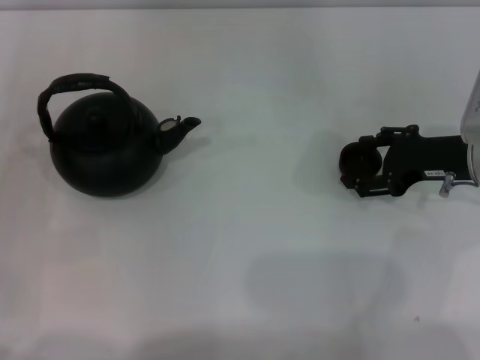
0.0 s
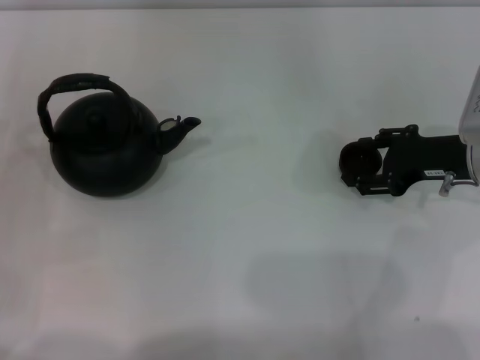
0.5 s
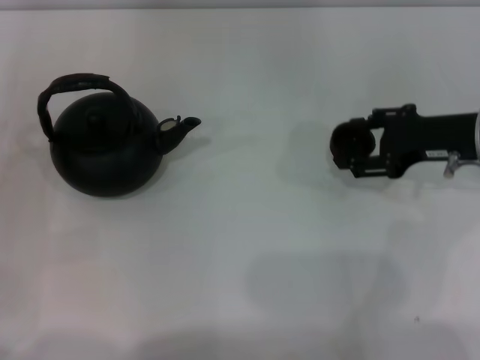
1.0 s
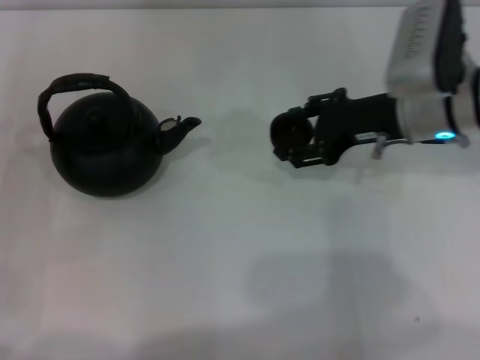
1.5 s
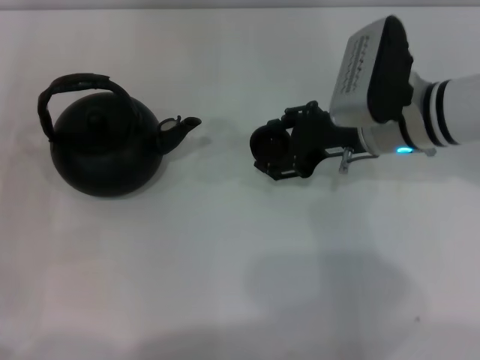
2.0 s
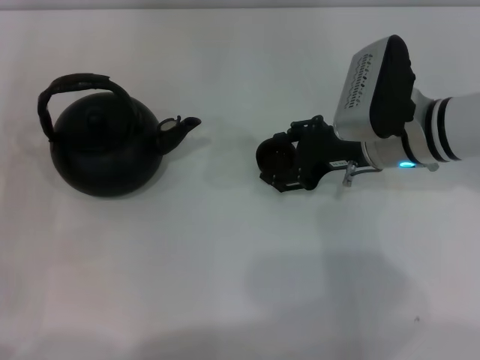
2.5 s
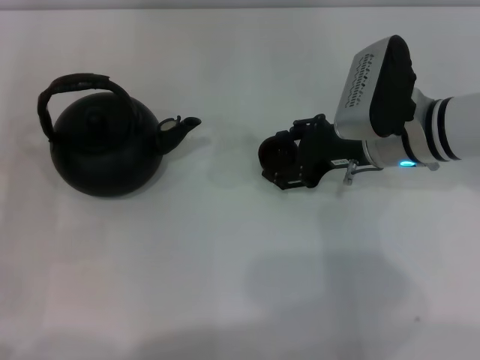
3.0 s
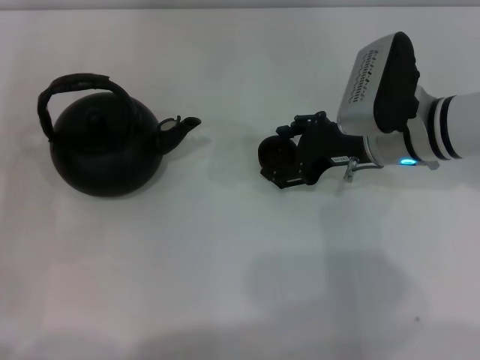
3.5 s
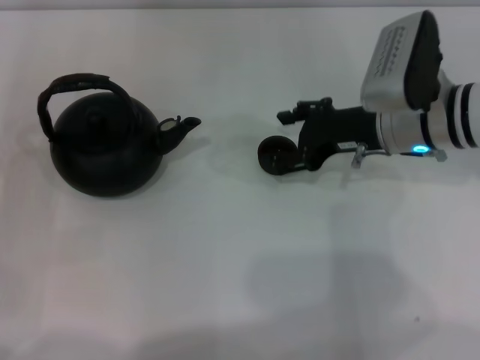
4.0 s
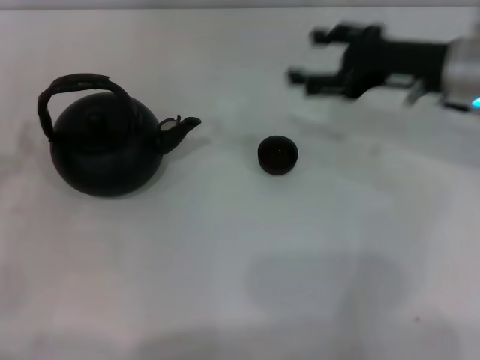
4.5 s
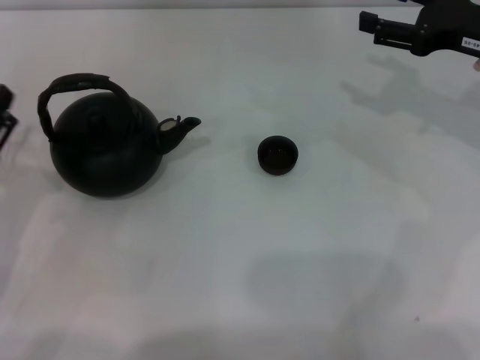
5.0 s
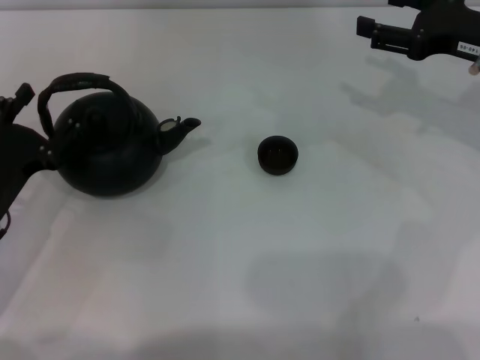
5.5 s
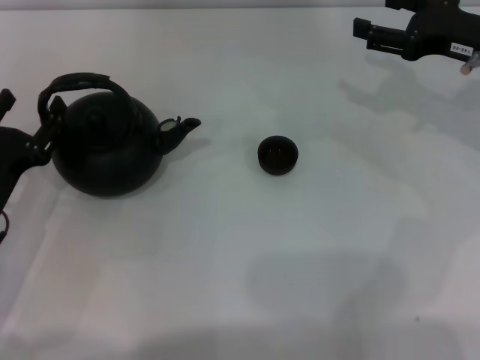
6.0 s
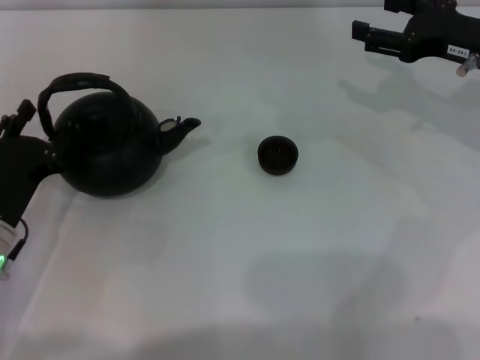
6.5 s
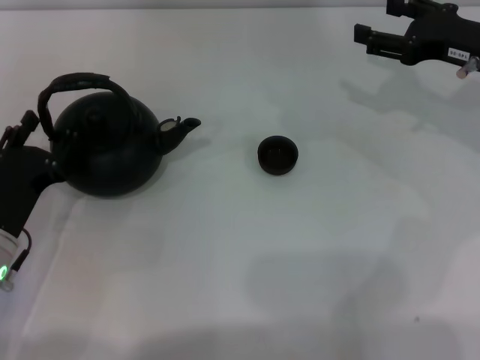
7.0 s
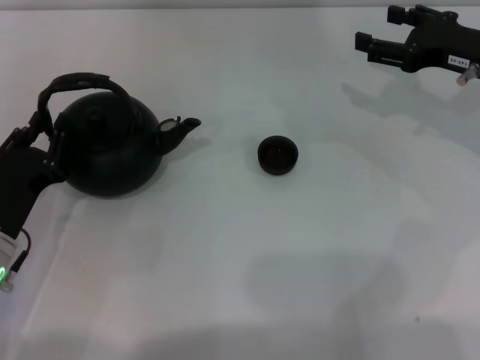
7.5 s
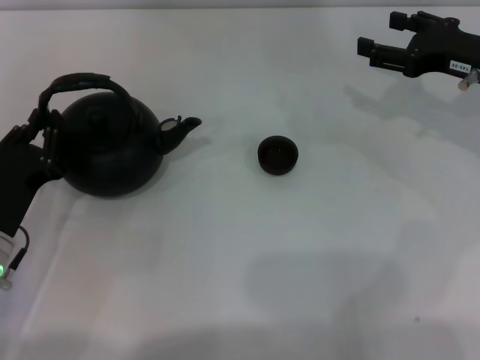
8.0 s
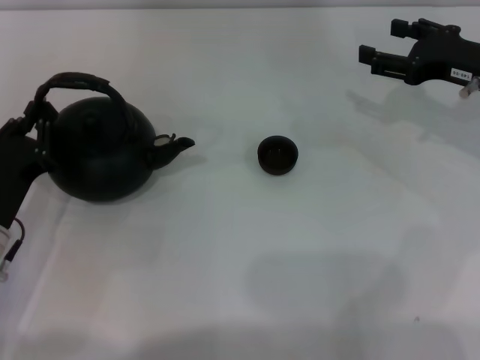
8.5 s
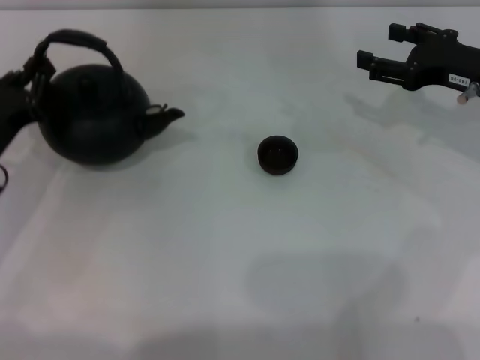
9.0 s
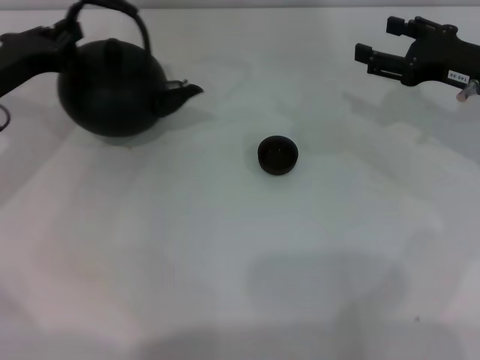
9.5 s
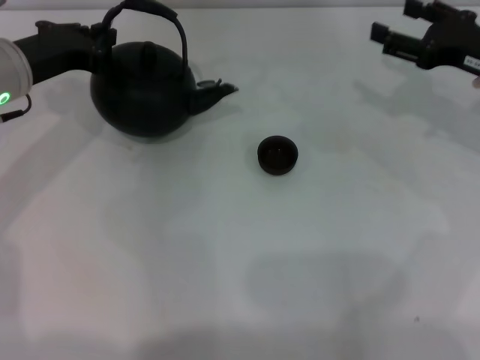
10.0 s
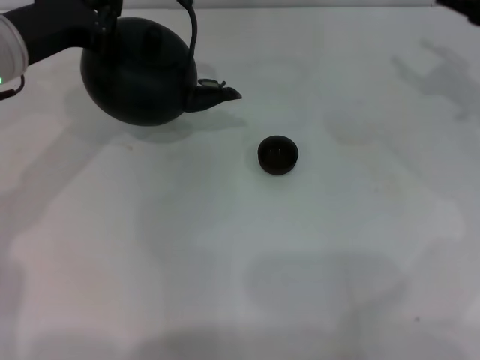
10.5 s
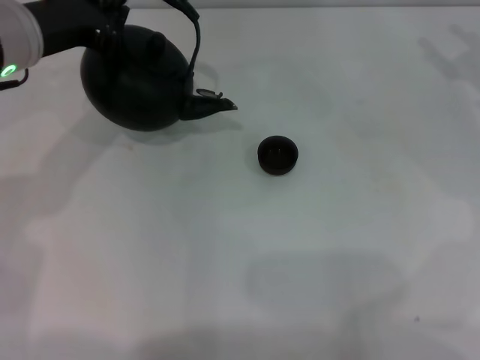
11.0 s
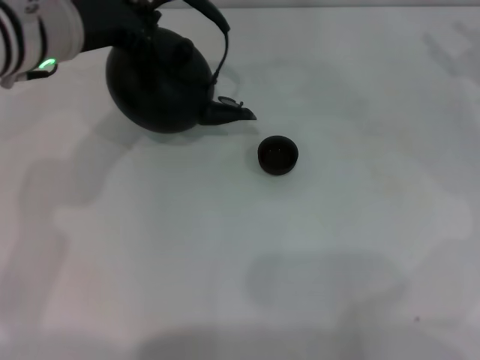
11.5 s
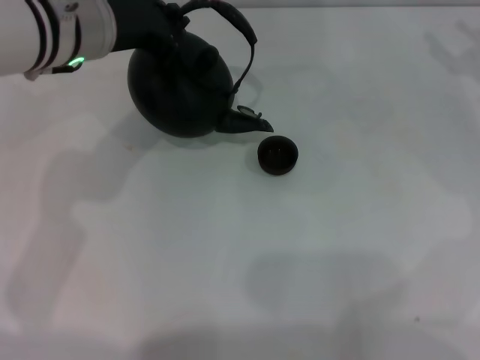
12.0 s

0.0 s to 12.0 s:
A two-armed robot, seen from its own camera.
Task of the whole recording: Grasp the handle of the teapot with one hand and pour tea into the teacup.
Step, 1.5 to 4.0 s: Place the teacup in the center of view with the right gripper.
Step, 4.5 to 9.0 s: Pick up the teapot with the left gripper.
0.0 to 2.0 s: The right gripper goes some 10 cm to the left.
2.0 to 4.0 s: The grippers stay close to where they were, moving slightly.
4.0 to 6.0 s: Both grippers move to the right, about 10 cm.
6.0 to 8.0 s: The left gripper closes up.
8.0 to 10.0 s: The left gripper travels forward and upward by some 20 cm.
10.0 to 12.0 s: The left gripper is displaced to the right and upward by roughly 10 cm; the right gripper goes about 5 cm to the right.

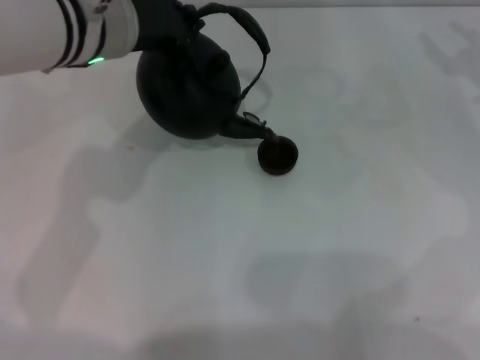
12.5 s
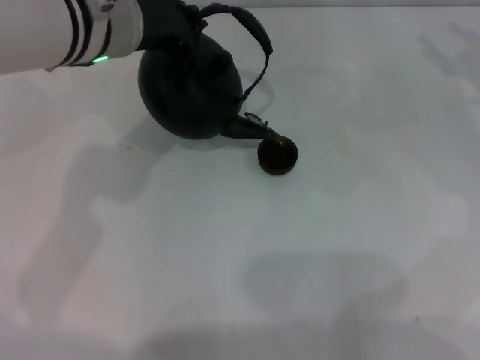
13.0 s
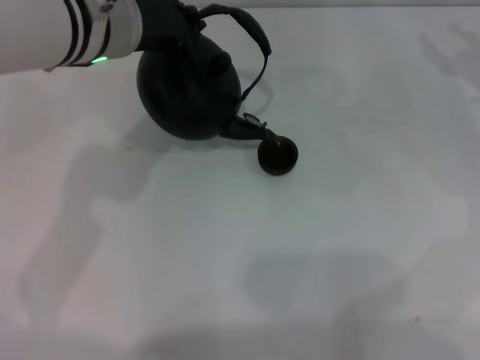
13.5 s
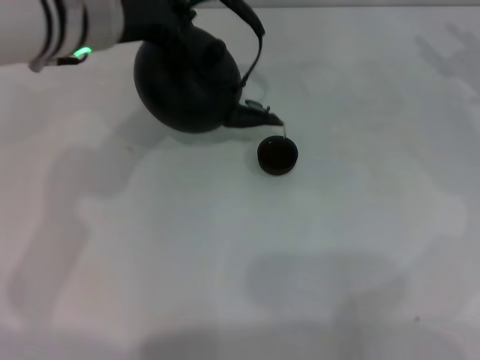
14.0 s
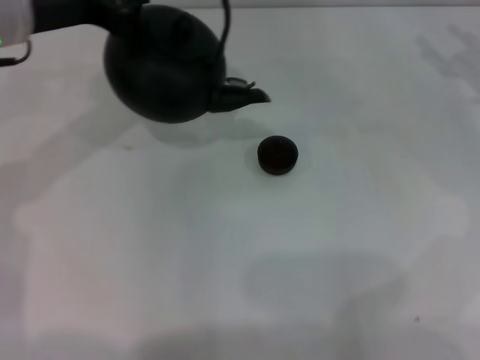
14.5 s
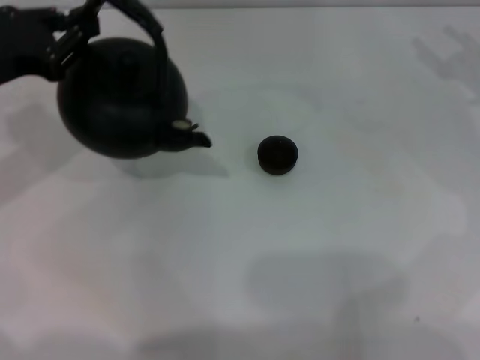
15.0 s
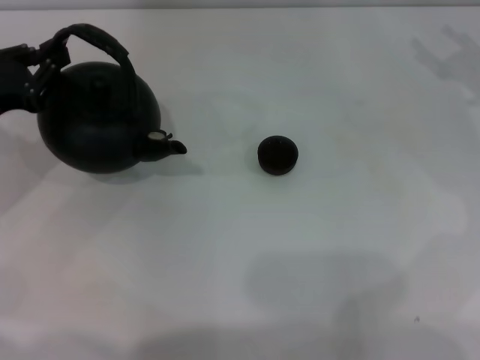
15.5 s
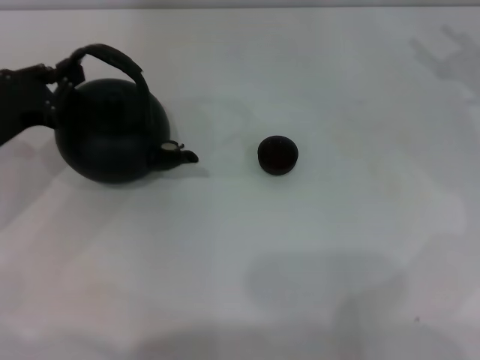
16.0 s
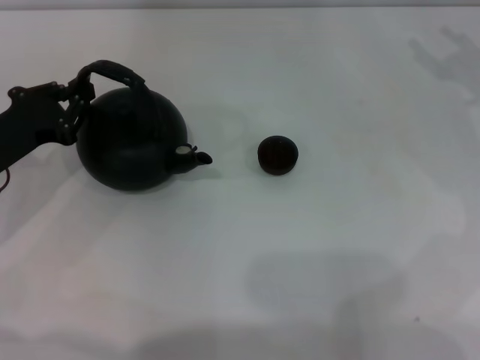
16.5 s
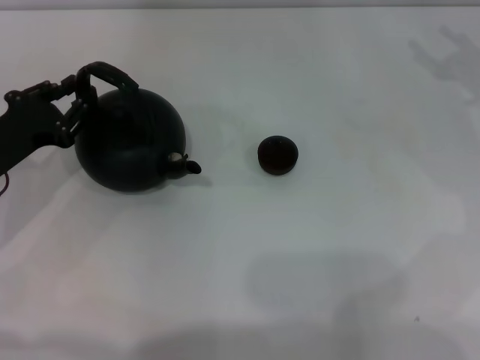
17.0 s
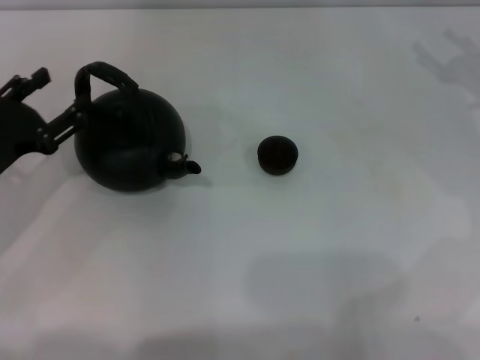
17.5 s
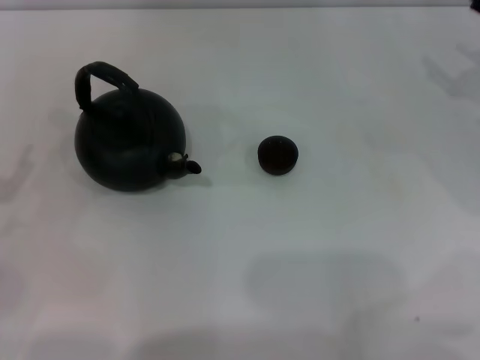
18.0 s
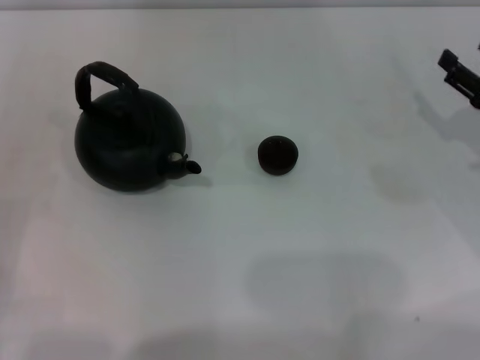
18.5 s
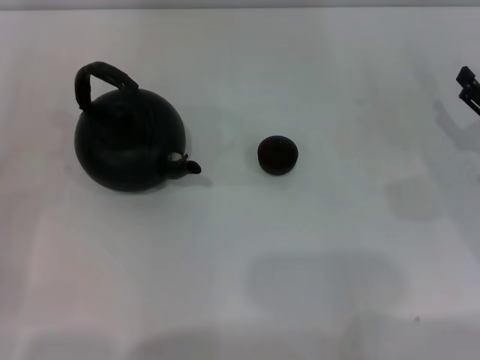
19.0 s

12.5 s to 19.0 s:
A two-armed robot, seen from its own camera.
Task of the whole recording: Grasp the handle of the teapot with one hand and pour tea into the teacup.
Step, 12.5 to 14.5 s: Pour tea into the teacup with the left gripper.
Step, 15.0 to 17.5 s: Put down the teapot with the left gripper.
12.5 to 14.5 s: The left gripper goes roughly 10 cm to the left.
14.5 to 17.0 s: The left gripper shifts approximately 20 cm downward, to the left and backward.
17.0 to 19.0 s: The left gripper heads backward and to the left, covering some 15 cm, and opens.

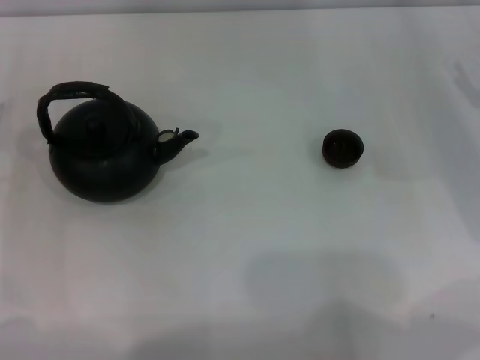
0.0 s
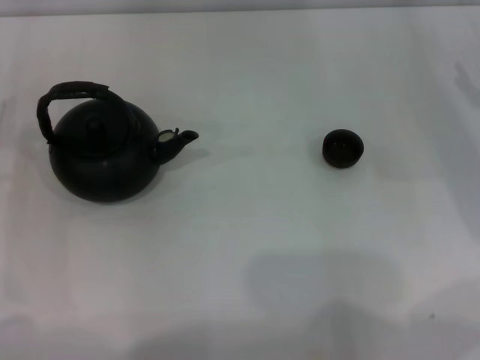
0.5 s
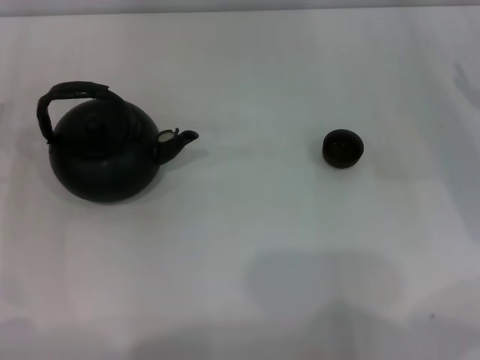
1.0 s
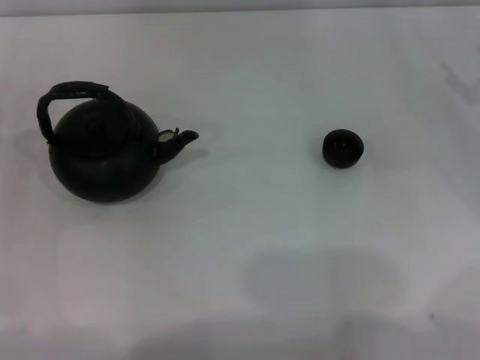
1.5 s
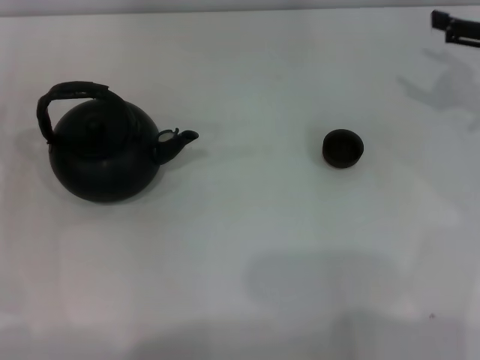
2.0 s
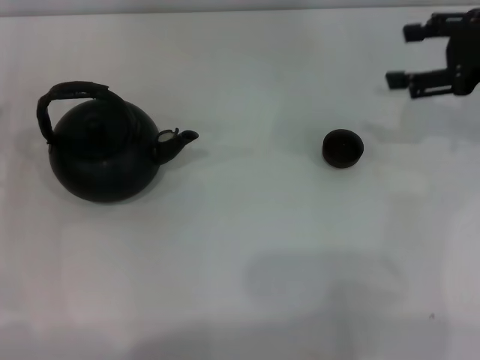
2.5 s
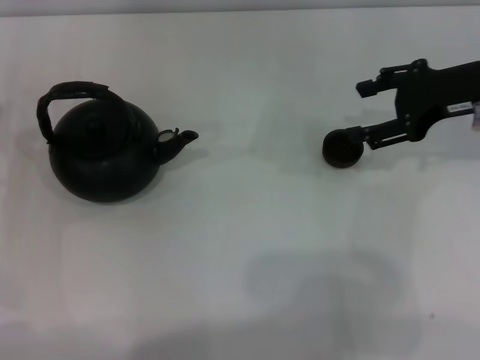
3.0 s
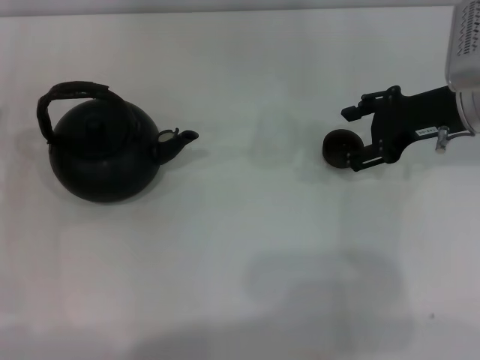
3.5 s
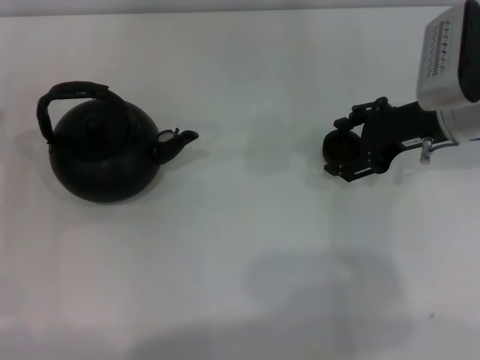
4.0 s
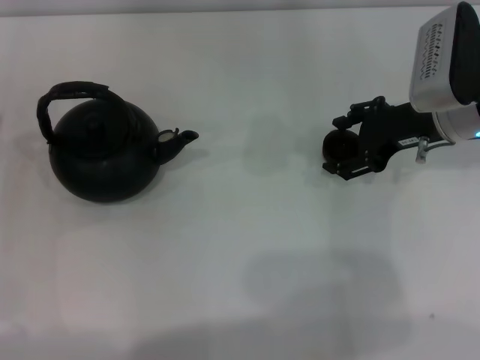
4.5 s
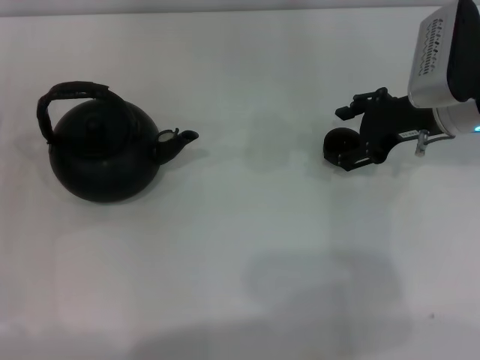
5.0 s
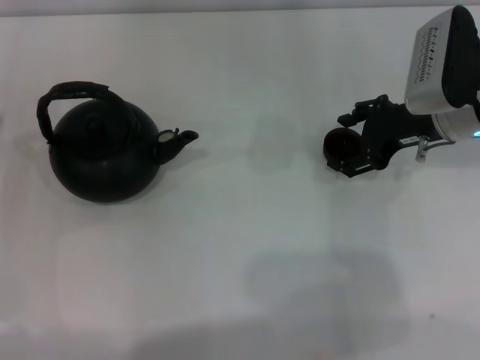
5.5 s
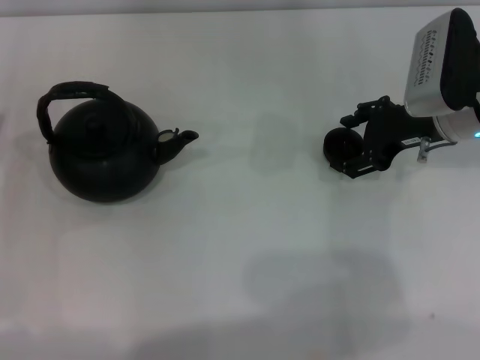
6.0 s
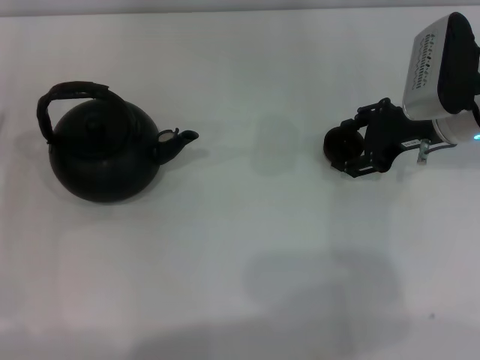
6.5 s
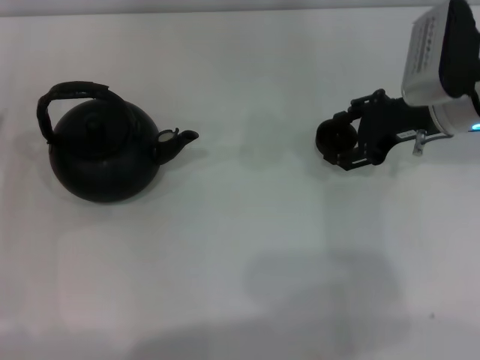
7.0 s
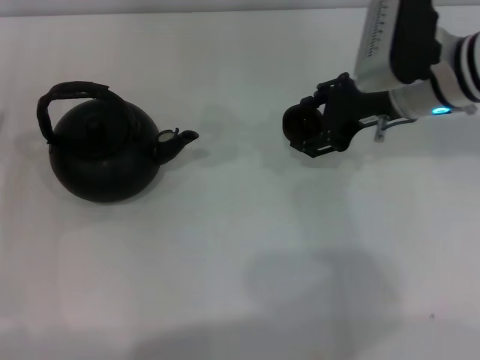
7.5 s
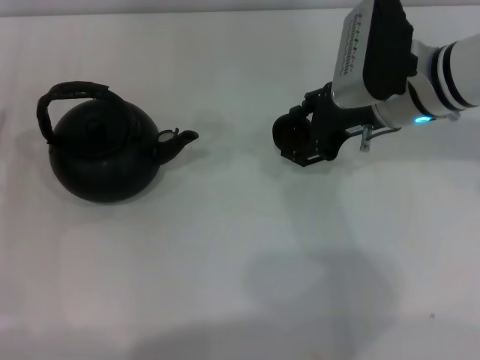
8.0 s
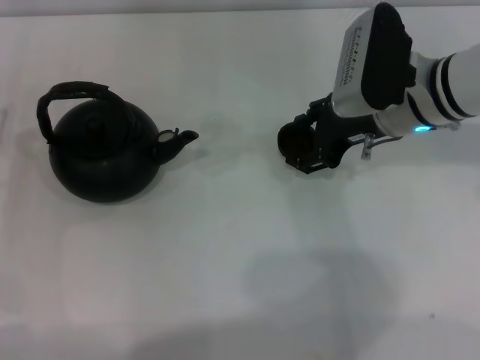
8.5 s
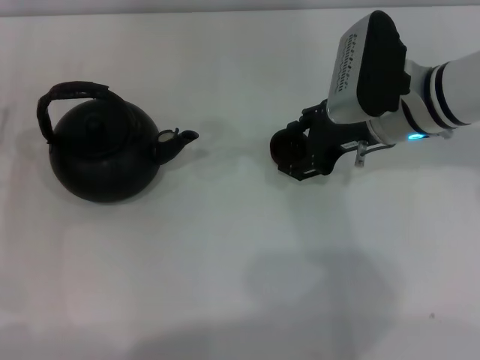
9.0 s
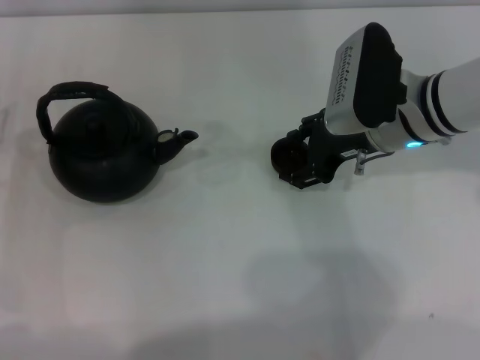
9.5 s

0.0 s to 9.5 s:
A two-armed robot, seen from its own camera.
Task of the whole recording: Grasp the handle of the teapot with one hand and pour tea into the teacup.
Step, 0.0 to 7.0 s: Pick up the teacup with the right gripper.
0.0 to 2.0 s: The right gripper shifts roughly 10 cm upward.
2.0 to 4.0 s: The right gripper travels to the left by approximately 10 cm.
4.0 to 5.5 s: Both grippers stay about where they are.
5.5 to 7.5 s: The right gripper shifts by roughly 5 cm.
7.5 to 9.5 s: The grippers stay close to where they were, moving slightly.
